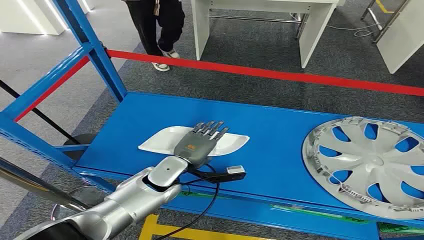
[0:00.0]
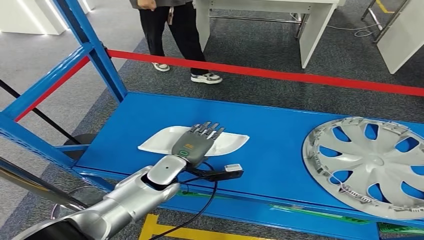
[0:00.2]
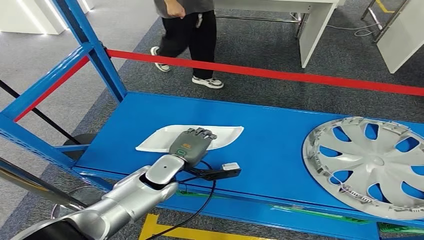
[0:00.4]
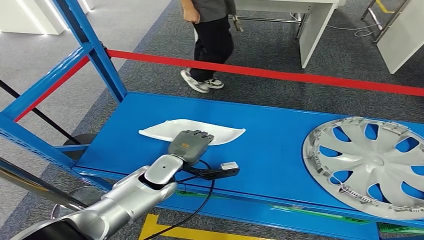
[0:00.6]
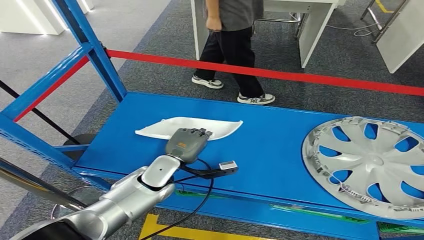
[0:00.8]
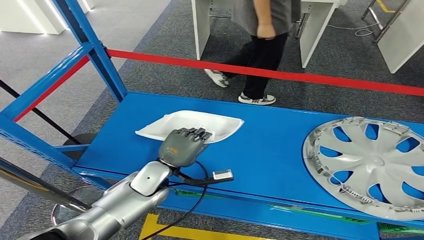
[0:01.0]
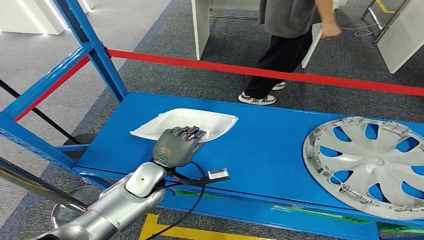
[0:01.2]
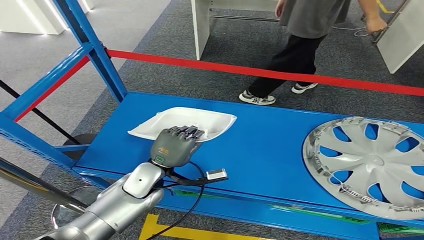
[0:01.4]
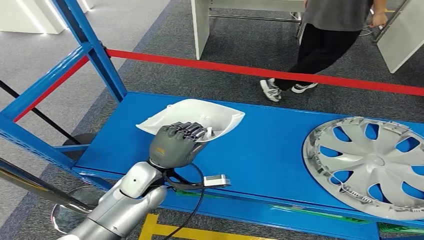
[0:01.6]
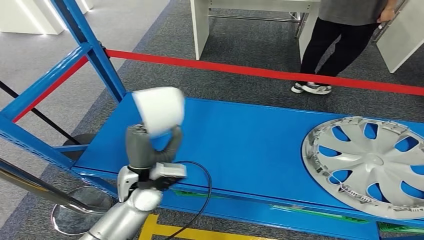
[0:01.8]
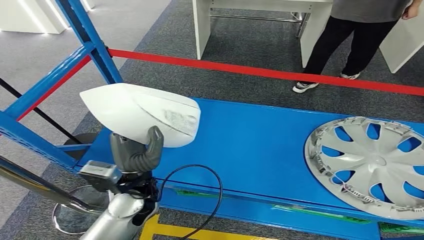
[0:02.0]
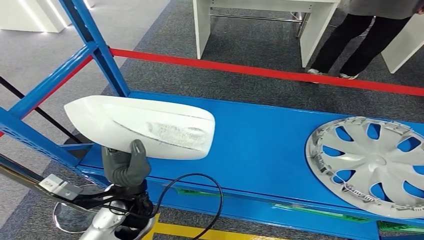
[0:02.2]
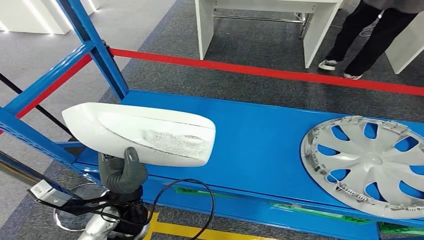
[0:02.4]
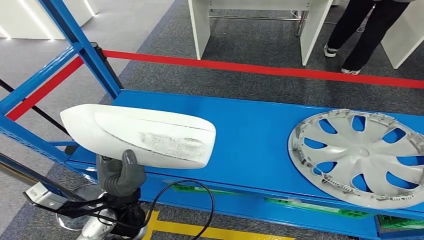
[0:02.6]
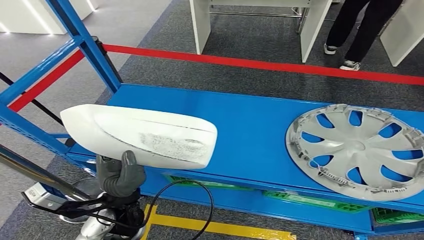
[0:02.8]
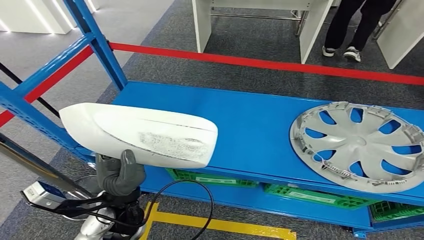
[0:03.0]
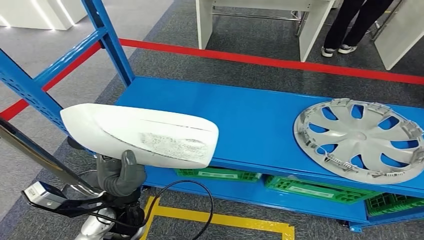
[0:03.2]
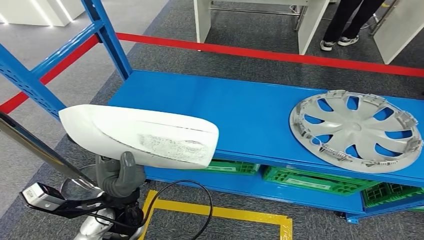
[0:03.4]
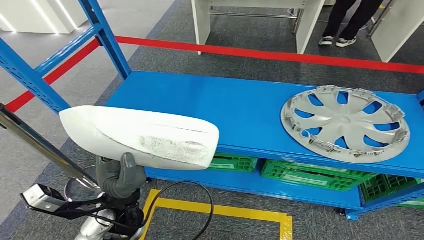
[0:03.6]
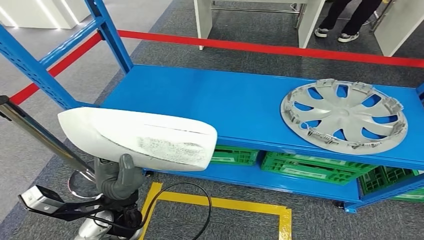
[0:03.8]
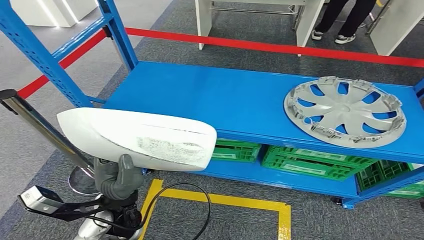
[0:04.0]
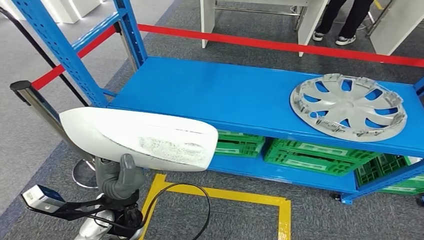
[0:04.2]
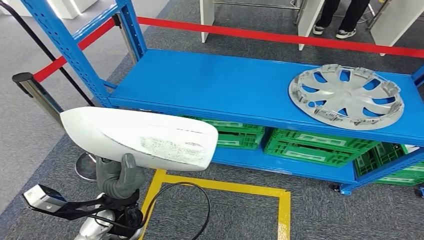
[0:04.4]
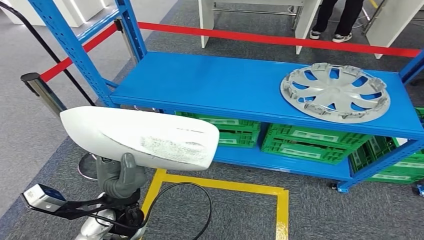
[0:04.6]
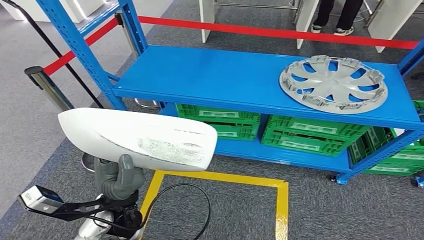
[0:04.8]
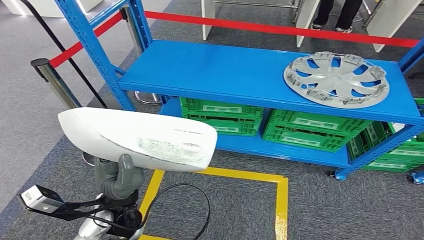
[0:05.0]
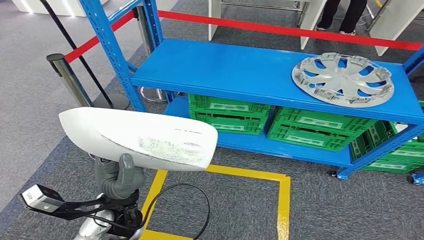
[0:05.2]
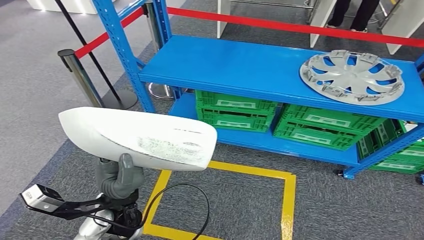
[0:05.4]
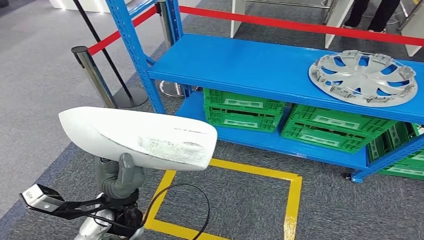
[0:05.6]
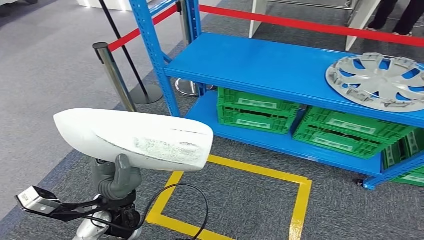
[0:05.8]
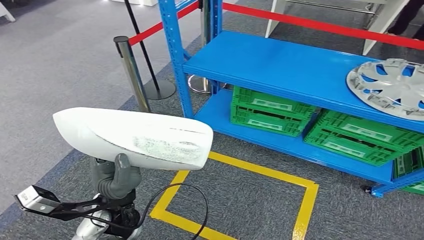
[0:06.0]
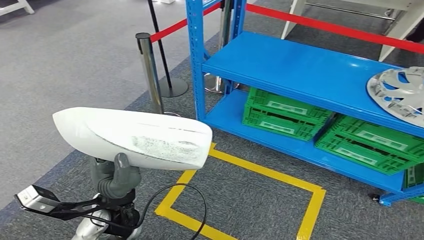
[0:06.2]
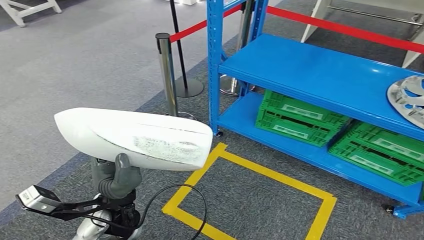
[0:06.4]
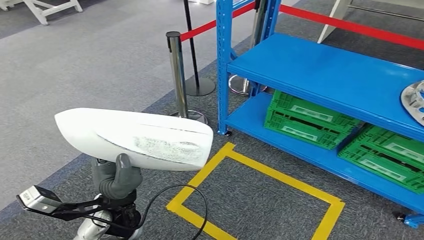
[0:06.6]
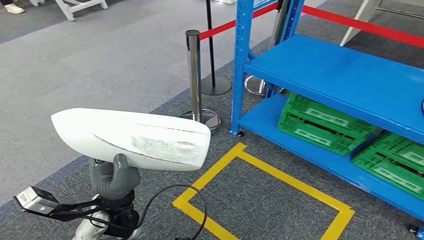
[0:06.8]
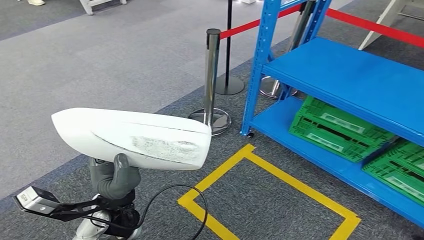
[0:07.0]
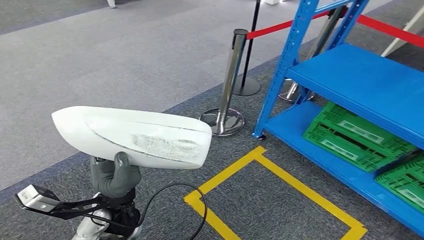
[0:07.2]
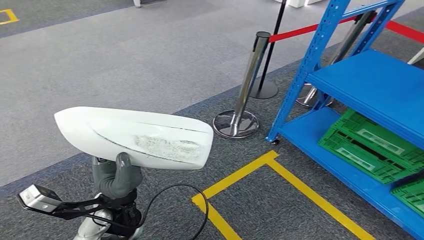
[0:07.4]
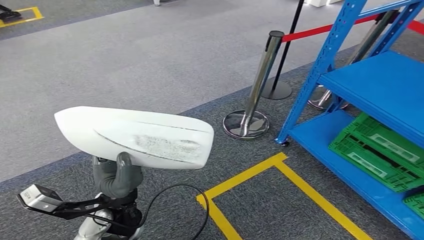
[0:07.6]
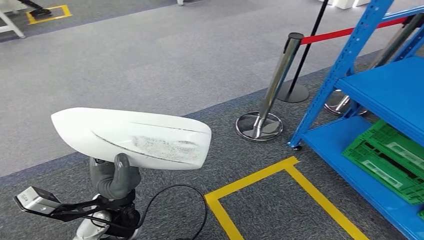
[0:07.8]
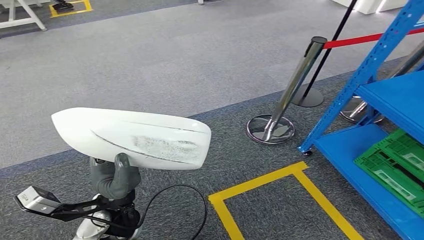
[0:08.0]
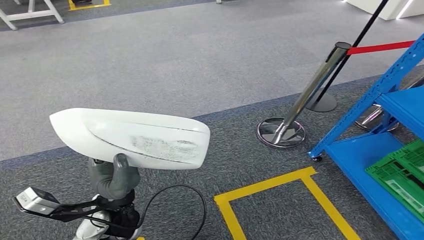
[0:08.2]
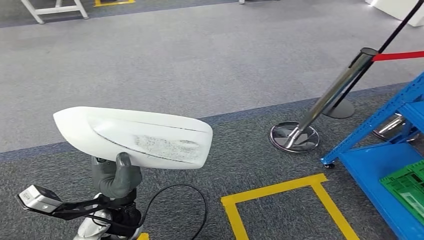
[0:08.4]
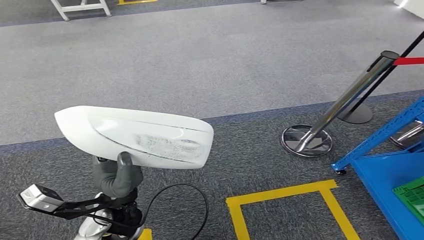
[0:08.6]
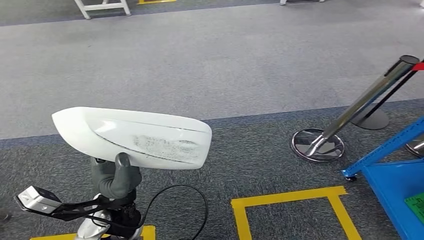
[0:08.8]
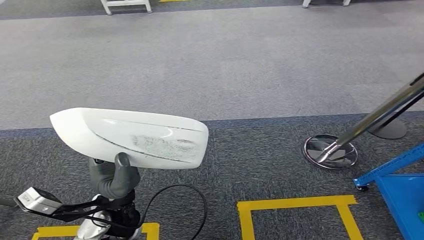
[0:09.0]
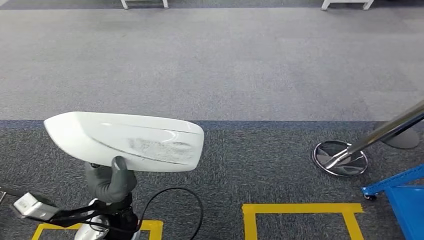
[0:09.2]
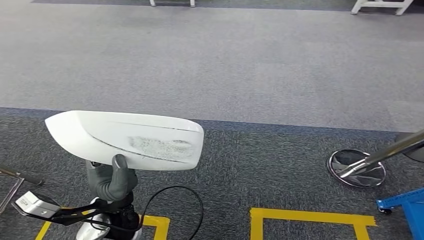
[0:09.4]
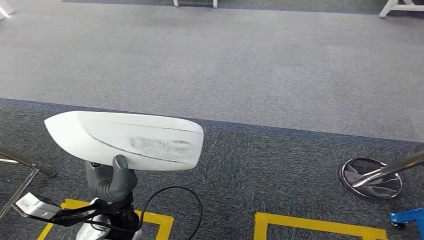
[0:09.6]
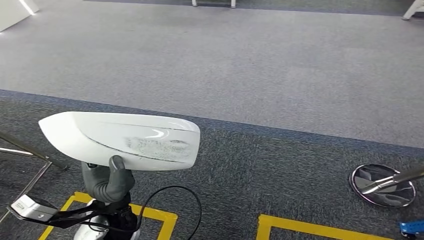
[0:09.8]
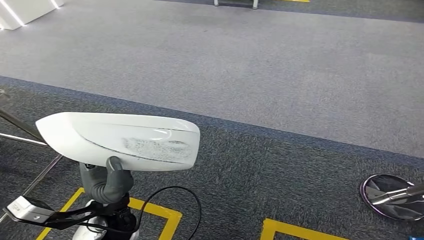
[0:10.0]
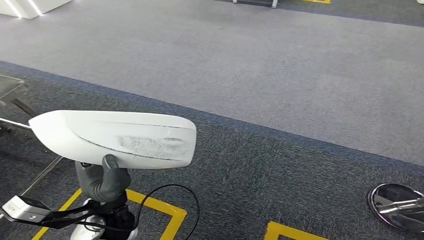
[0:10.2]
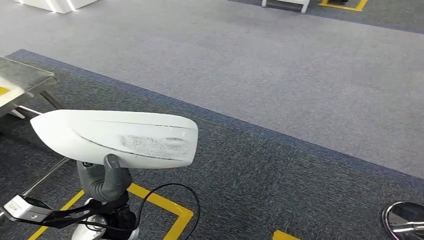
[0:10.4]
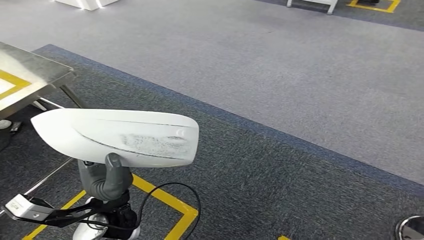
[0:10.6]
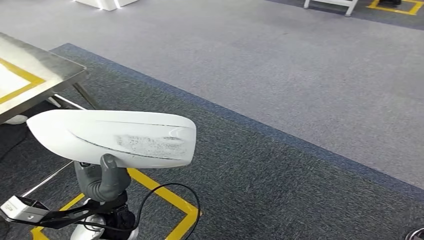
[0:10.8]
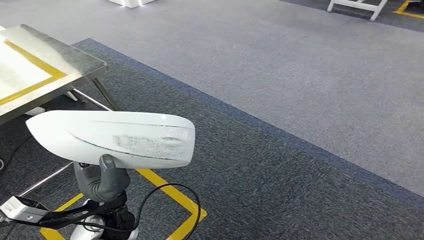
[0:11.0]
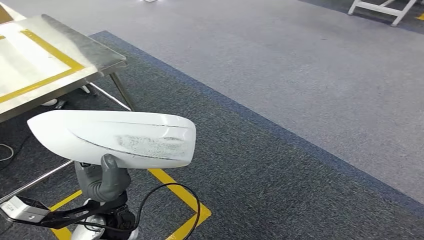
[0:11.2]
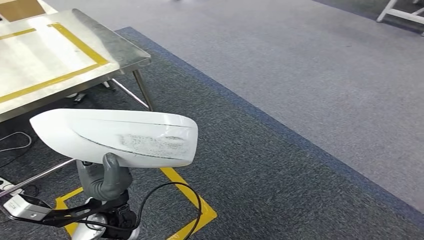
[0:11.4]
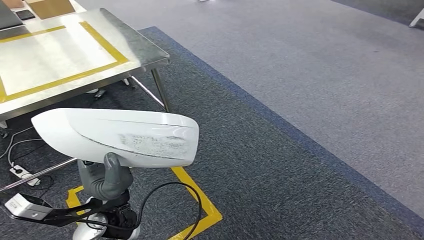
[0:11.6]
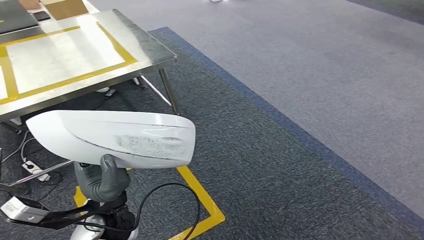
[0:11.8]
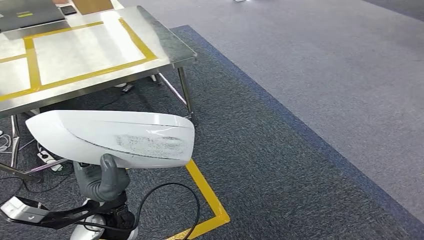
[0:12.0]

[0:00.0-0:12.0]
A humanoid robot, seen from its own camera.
Step, 0:00.0 to 0:02.0: Pick up the small component from the shelf.

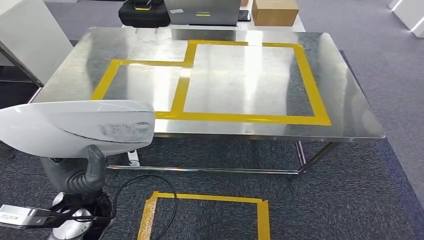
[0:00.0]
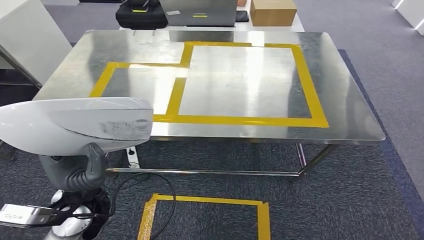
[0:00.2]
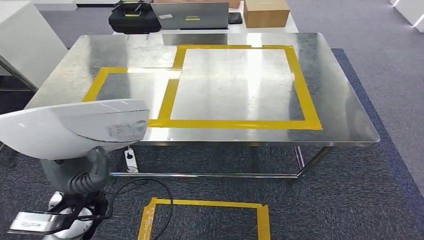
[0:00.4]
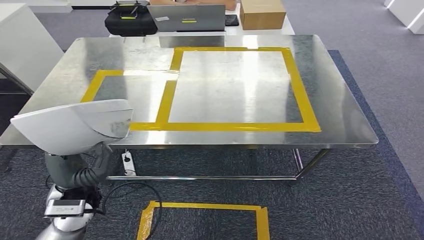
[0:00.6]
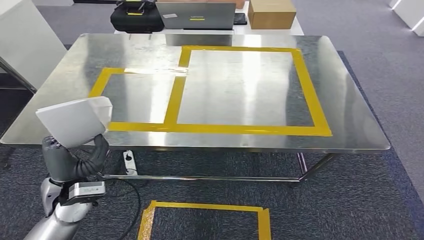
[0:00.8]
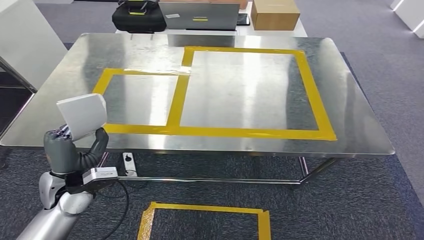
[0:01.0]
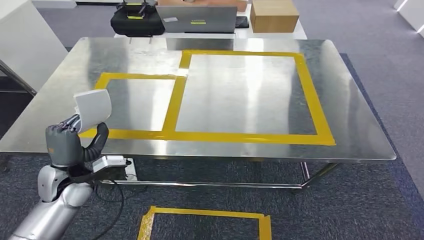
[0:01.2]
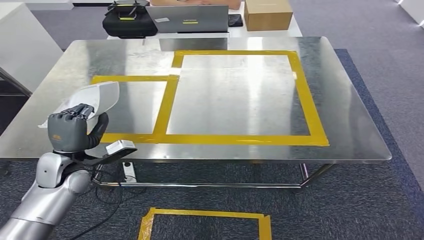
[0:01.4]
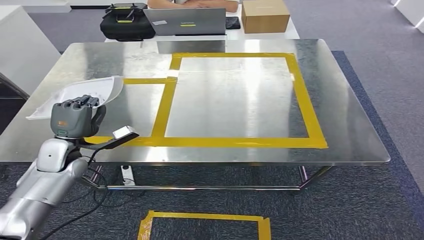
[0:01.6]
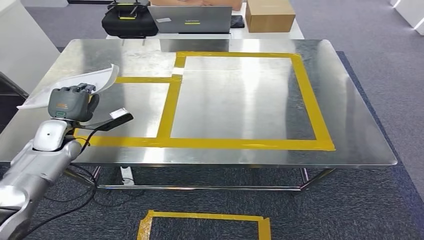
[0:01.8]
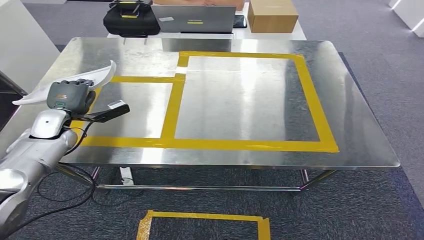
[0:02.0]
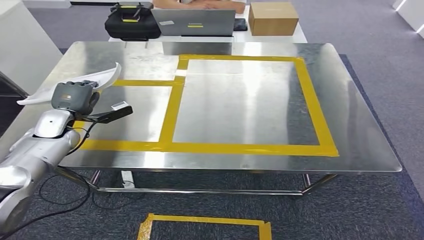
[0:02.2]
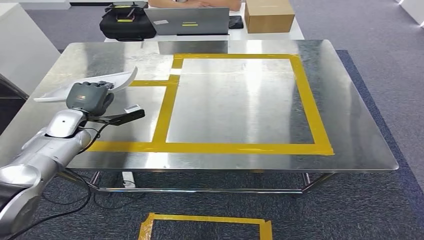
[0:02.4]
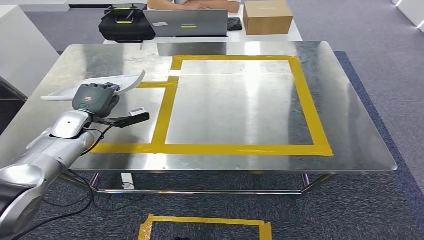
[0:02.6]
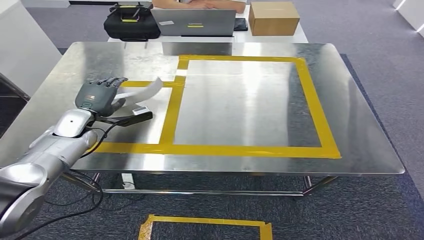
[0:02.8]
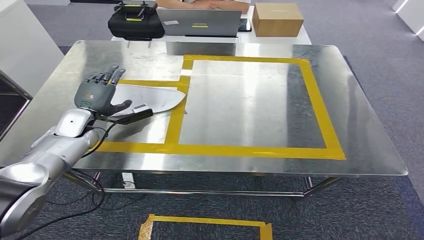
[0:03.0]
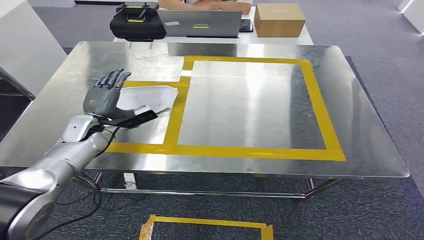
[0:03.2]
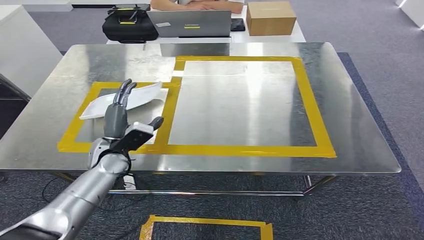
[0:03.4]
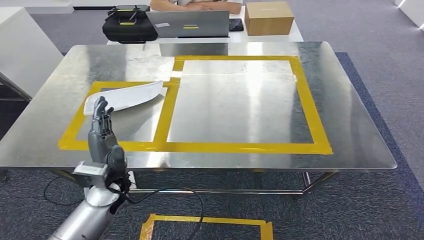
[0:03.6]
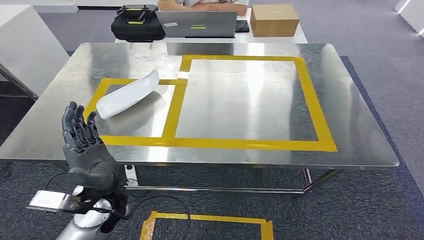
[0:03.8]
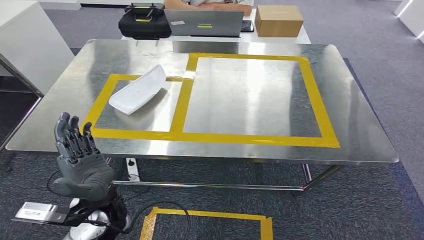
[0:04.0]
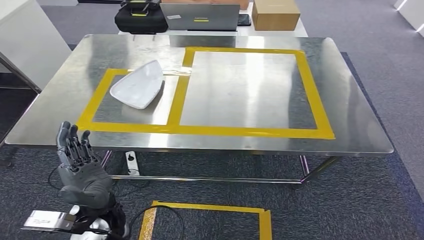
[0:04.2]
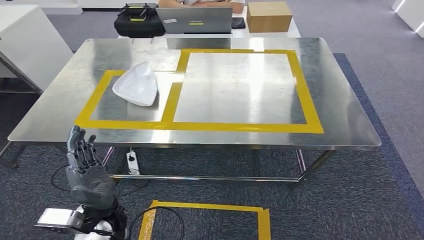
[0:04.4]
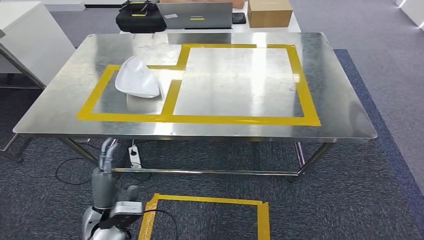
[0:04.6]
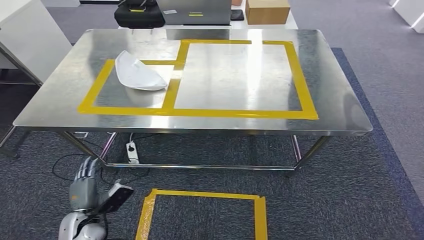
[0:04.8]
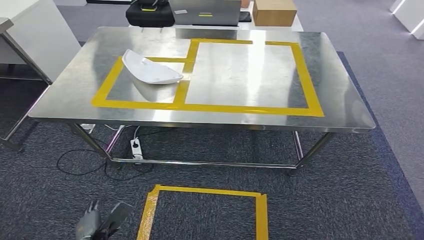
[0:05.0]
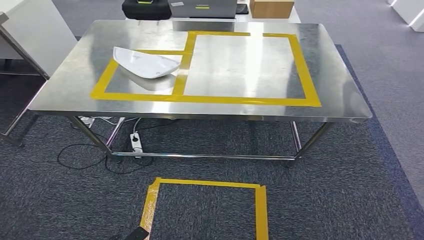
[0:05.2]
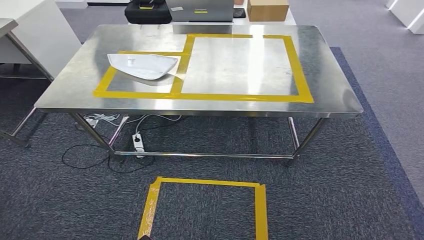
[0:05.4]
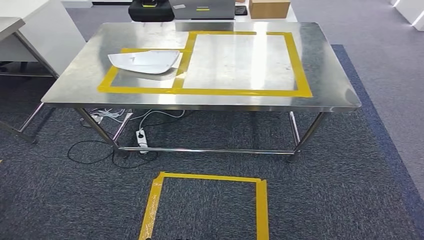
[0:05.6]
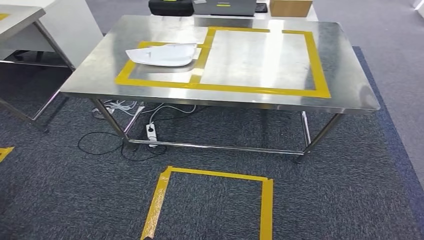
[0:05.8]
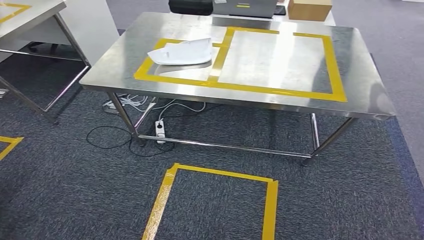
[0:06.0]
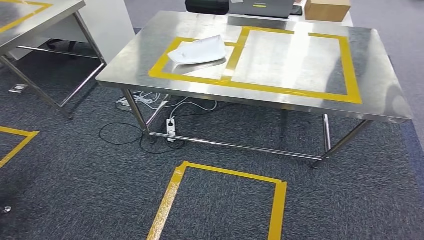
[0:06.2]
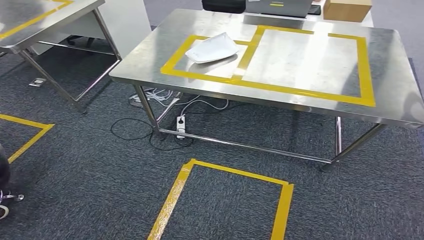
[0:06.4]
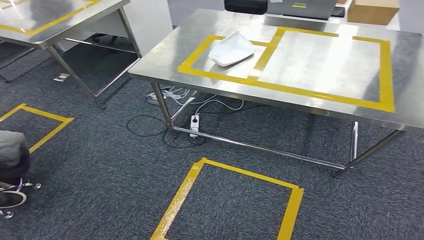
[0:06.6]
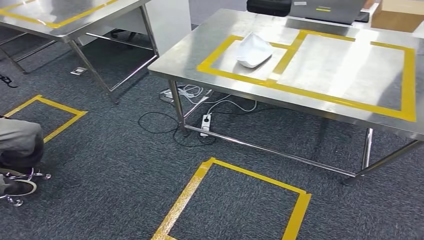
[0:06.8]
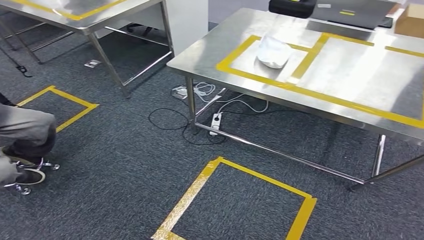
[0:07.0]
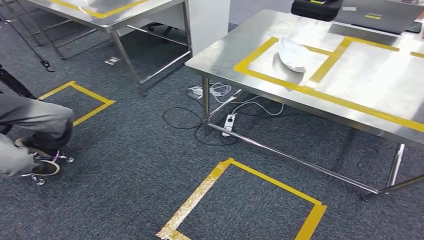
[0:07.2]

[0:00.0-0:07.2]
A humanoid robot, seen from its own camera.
Step, 0:00.0 to 0:04.0: Insert the small component into the corresponding slot on the workbench.
